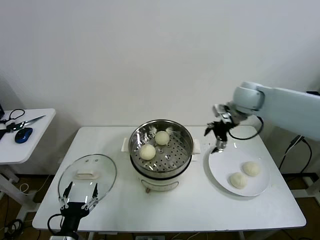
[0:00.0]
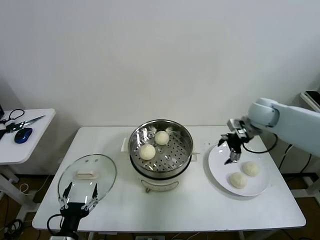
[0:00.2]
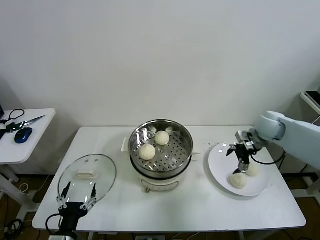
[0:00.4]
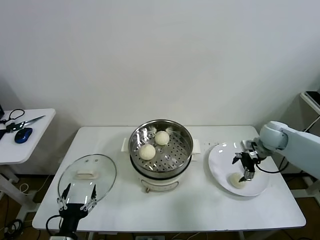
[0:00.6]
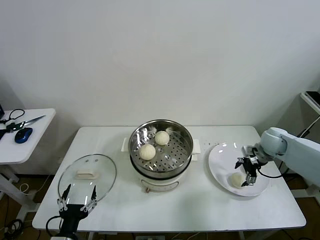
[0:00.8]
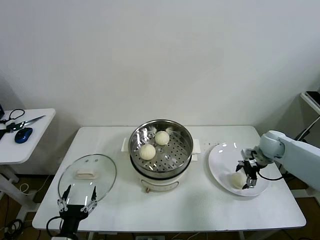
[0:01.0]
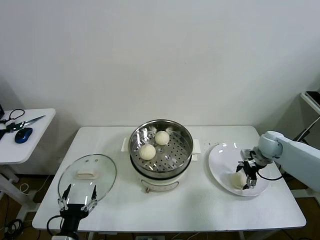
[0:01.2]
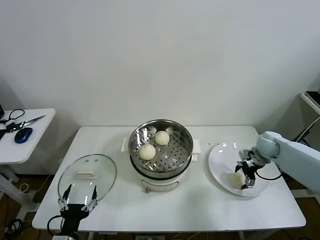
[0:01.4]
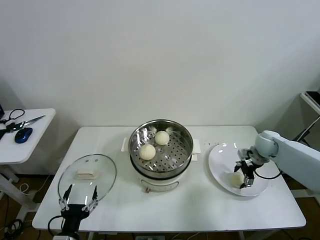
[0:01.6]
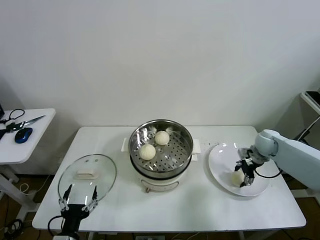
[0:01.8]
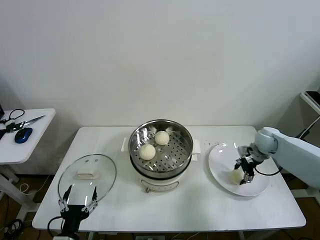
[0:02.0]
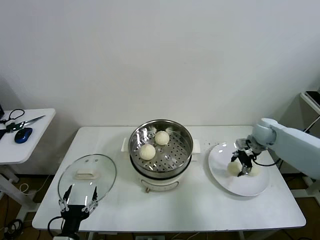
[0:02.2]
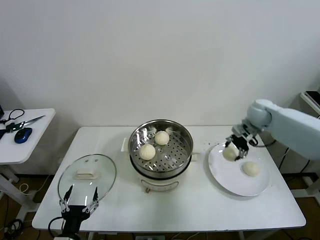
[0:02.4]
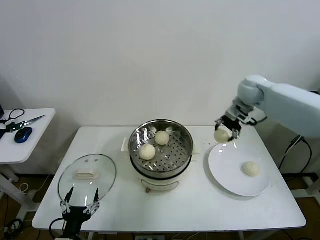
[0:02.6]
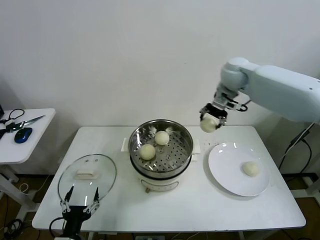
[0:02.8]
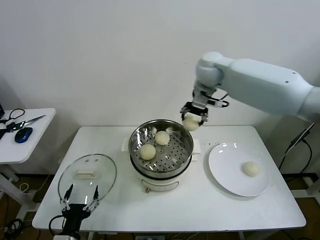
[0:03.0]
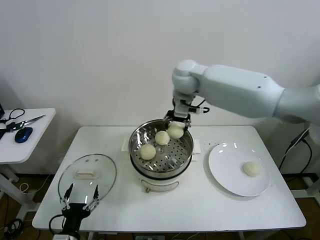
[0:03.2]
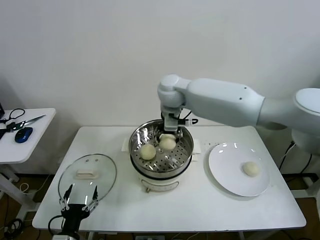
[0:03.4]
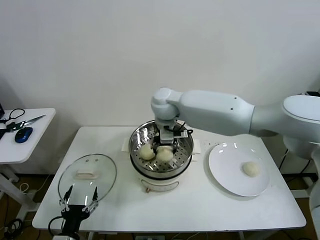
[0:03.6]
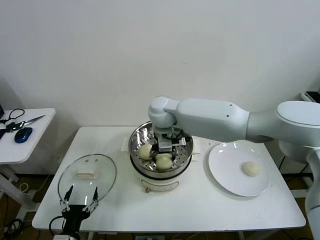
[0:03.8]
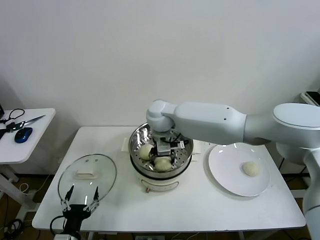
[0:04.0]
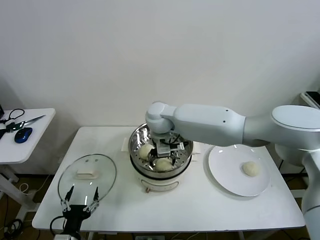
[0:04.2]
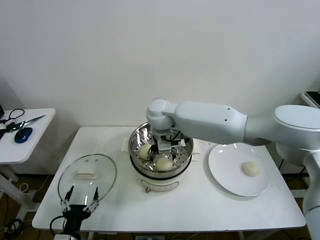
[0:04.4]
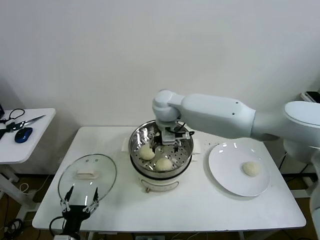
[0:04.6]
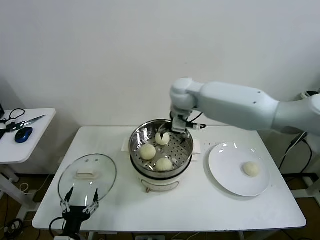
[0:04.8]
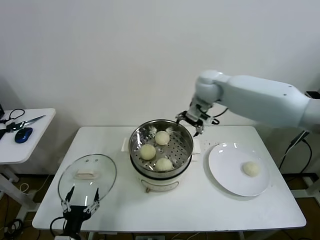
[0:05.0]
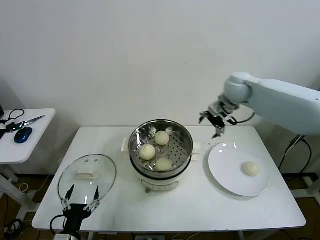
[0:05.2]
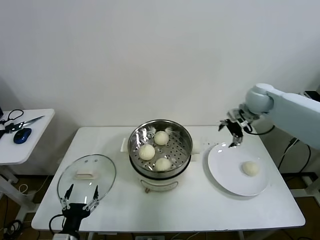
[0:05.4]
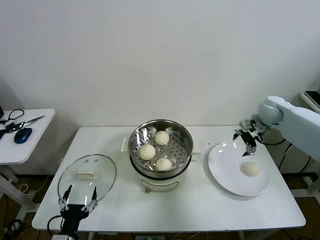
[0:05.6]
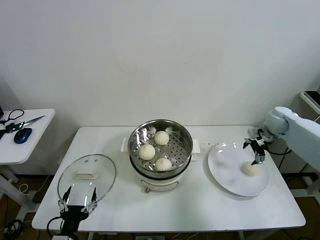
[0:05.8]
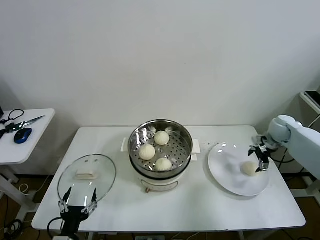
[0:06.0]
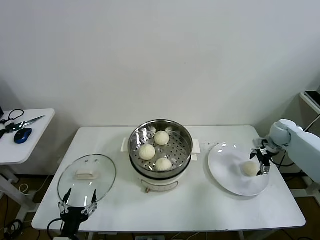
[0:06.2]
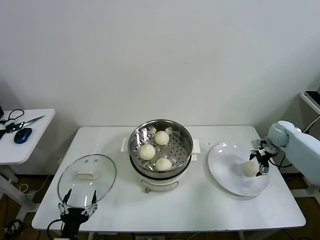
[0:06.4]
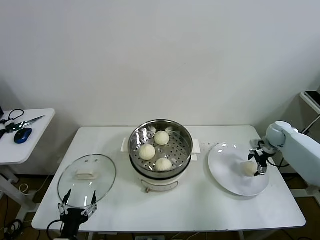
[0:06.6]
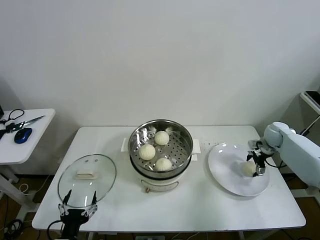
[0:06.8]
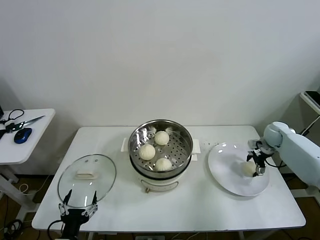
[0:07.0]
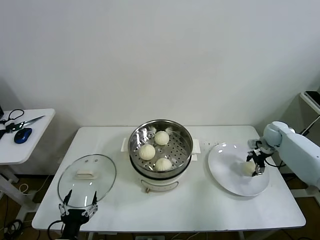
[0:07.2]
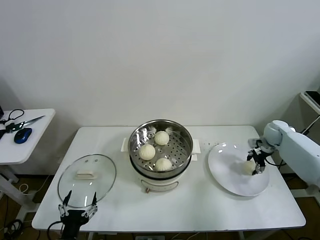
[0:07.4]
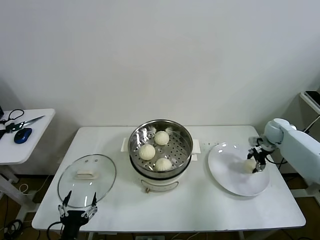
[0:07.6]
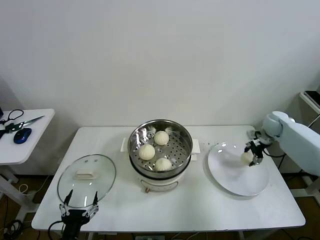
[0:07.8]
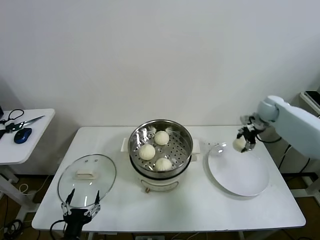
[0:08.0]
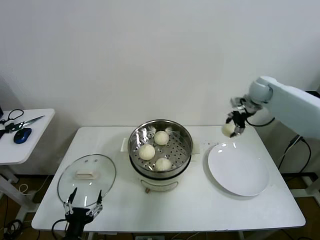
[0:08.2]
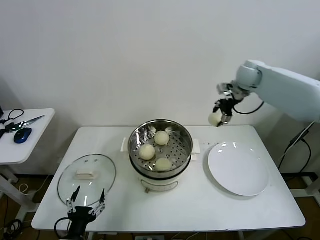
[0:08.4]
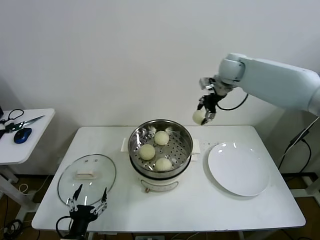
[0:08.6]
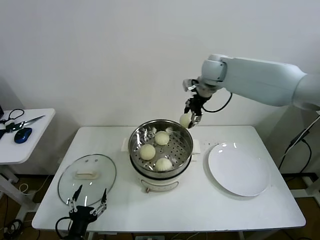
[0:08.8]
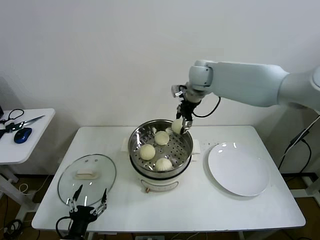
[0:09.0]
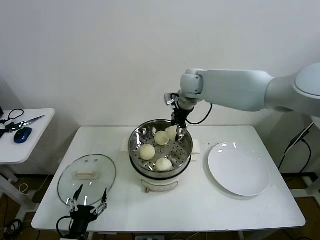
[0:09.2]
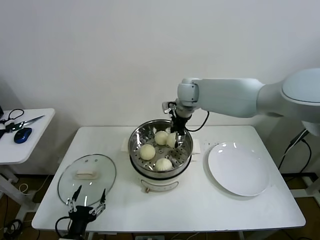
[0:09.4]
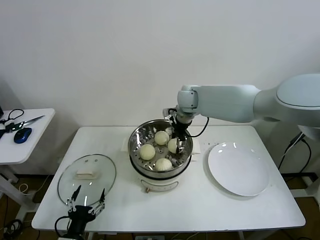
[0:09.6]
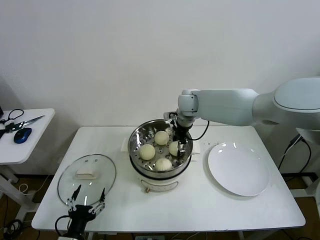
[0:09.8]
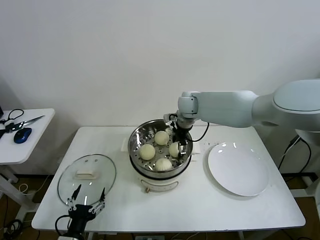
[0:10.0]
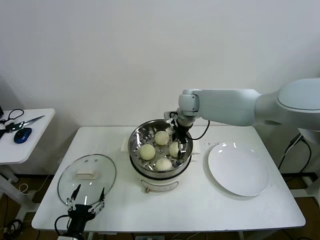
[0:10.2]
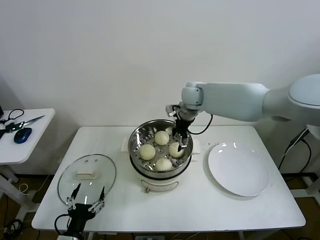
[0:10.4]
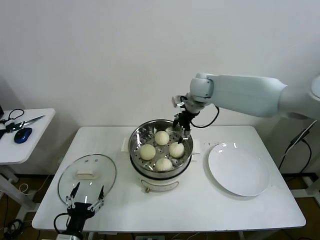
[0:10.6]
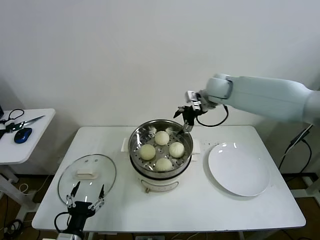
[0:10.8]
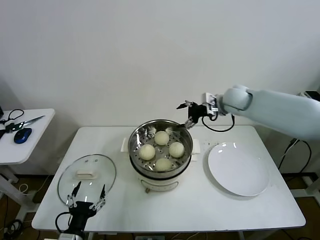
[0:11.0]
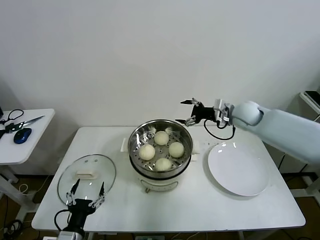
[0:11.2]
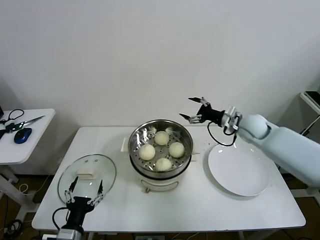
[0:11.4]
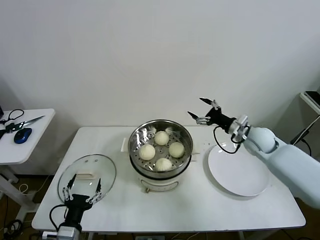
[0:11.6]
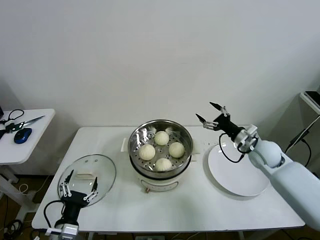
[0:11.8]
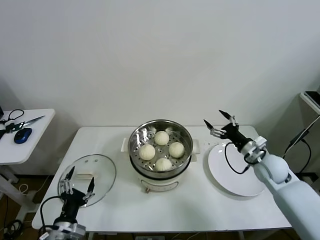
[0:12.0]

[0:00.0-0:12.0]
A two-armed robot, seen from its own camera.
Task of the whole recording: take steamed baozi put them in steamer then cover it.
Step, 0:00.0 to 0:02.0: Grasp the baozi in the plate with right gripper.
Step, 0:02.2 to 0:04.4: Place the baozi on the steamer with right gripper.
Step, 0:04.6 to 0:07.2: Grasp the baozi in the plate with right gripper.
Step, 0:07.4 to 0:10.2: Place the baozi on the steamer with right gripper.
0:00.0 to 0:01.6: The right gripper travels downward and to the right by some 20 cm.
0:01.6 to 0:03.0: The right gripper travels upward and to the left by roughly 40 cm, and closes its fingers.
0:03.0 to 0:04.4: The right gripper heads to the left, downward and backward, covering some 20 cm, and opens up.
0:04.4 to 0:06.0: The right gripper goes roughly 50 cm to the right.
0:06.0 to 0:07.6: The right gripper closes.
0:07.6 to 0:09.0: The right gripper shifts about 40 cm to the left and upward.
0:09.0 to 0:10.4: The right gripper heads downward, covering about 5 cm, and opens.
0:10.4 to 0:12.0: The right gripper goes some 35 cm to the right, backward and downward.

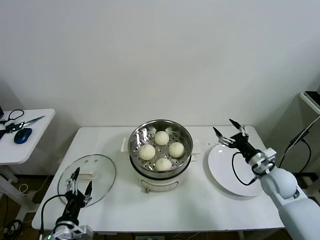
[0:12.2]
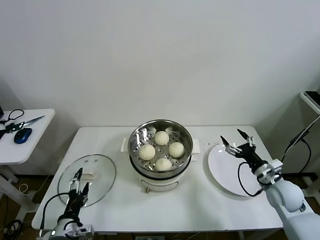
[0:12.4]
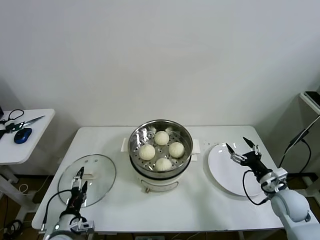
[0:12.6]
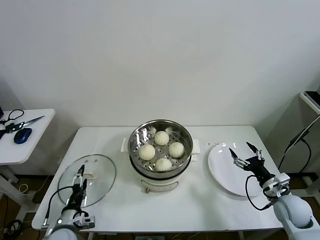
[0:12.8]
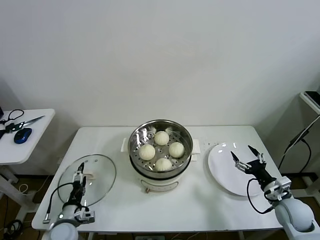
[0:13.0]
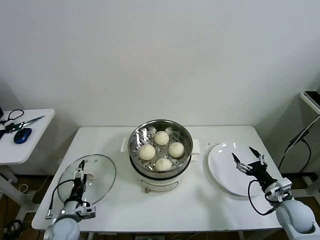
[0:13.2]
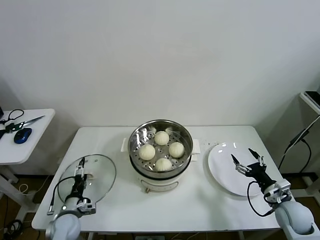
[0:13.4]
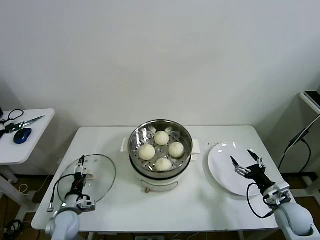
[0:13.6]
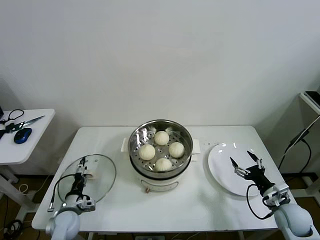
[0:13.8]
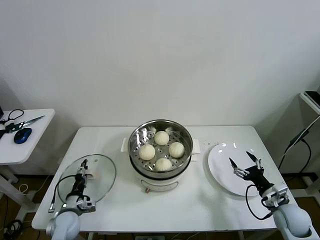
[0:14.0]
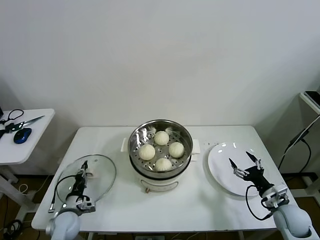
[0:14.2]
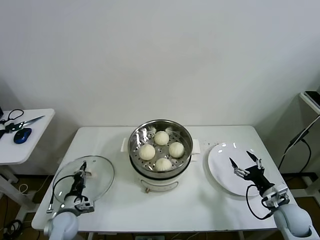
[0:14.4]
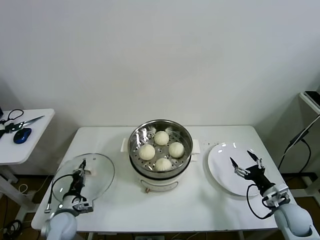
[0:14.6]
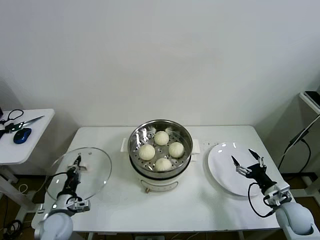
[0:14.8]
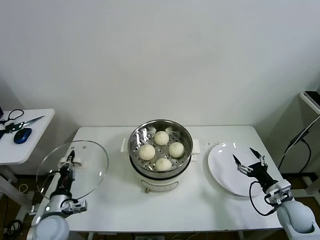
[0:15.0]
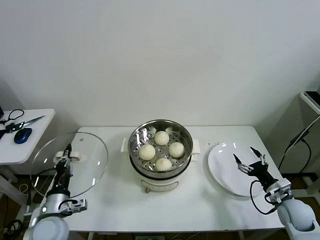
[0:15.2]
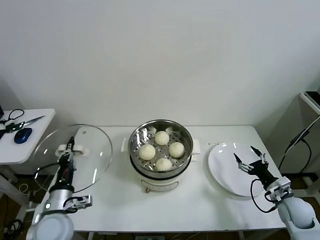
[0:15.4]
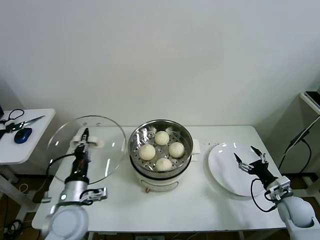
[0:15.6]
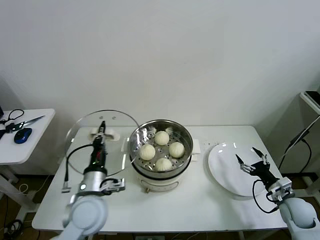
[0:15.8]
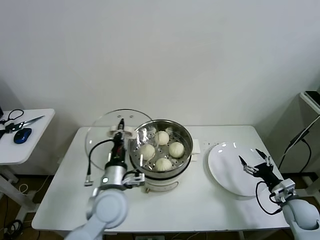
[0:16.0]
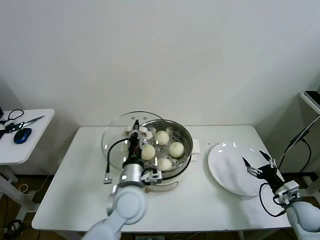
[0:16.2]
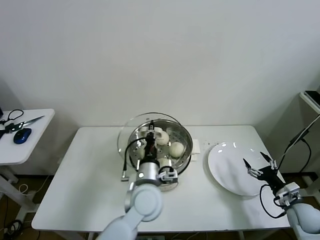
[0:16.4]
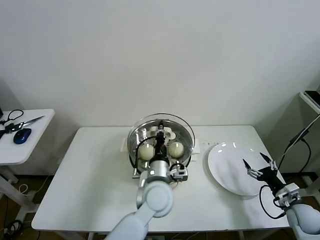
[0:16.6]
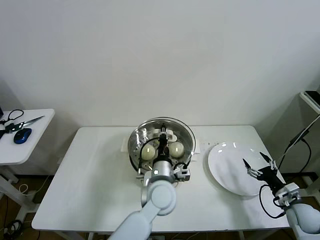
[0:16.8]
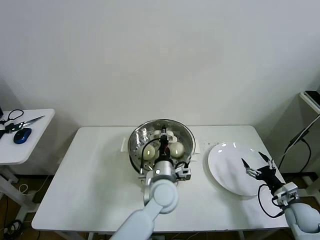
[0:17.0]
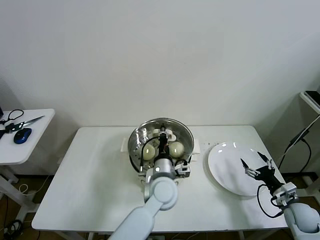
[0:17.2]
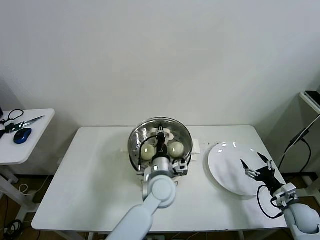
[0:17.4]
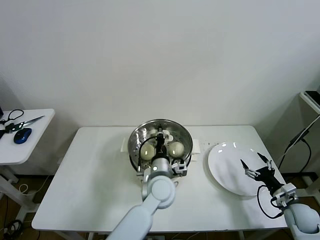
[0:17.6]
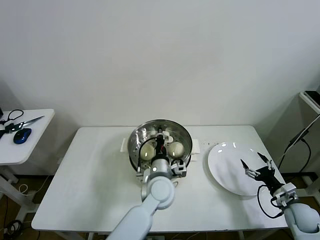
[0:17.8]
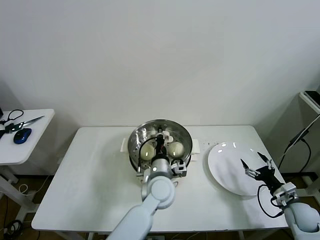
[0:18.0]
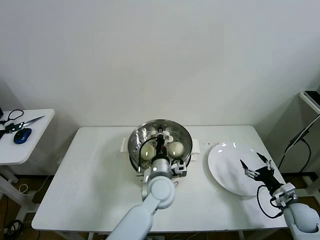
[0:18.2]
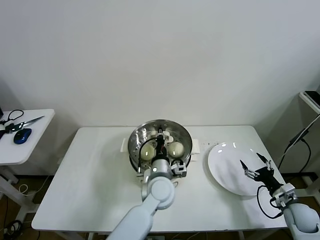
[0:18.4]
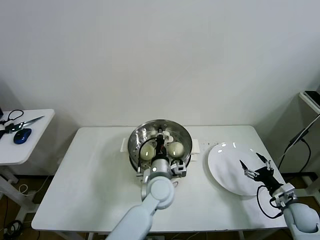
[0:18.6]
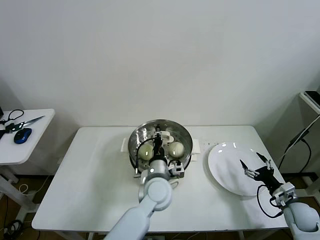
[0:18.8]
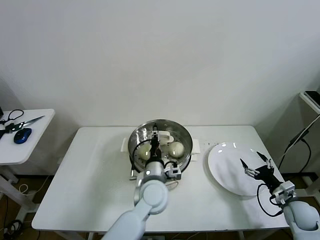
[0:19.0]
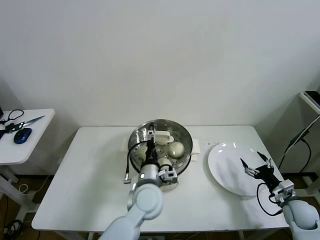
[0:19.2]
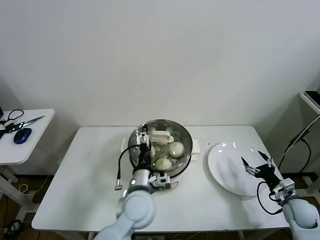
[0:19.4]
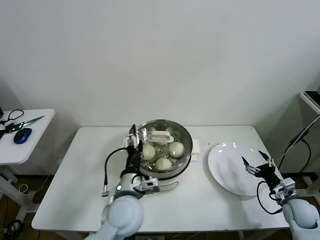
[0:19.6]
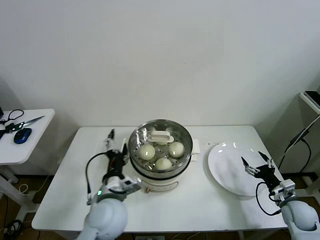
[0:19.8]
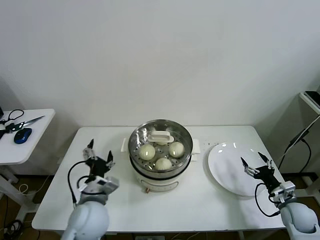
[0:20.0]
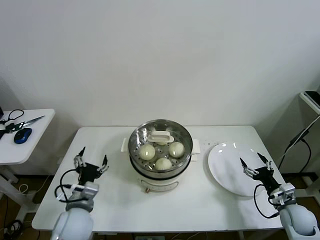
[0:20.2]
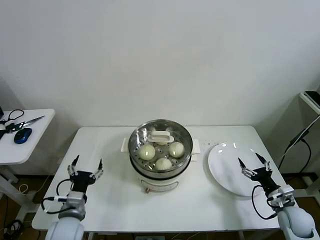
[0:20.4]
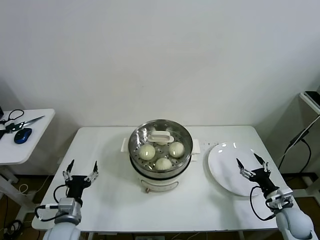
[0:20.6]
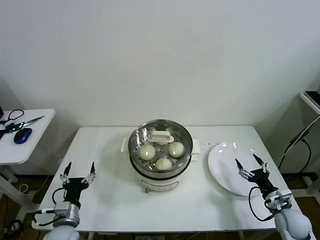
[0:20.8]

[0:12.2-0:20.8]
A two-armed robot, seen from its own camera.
Task of the whole recording: take steamed baozi put them in steamer then cover it.
Step, 0:12.2 to 0:14.4: Grasp the pot lid with left gripper.
Step, 0:14.6 to 0:19.0: Place the pot lid on the steamer with left gripper.
0:12.2 to 0:13.6: The right gripper heads backward and downward, covering about 10 cm; the left gripper heads forward and downward, covering about 15 cm.
0:13.6 to 0:15.0: The left gripper is displaced upward by about 10 cm, and closes.
0:15.0 to 0:16.6: The left gripper heads to the right, covering about 30 cm. The right gripper ends up some 5 cm from where it was.
0:16.6 to 0:18.0: The left gripper changes place by some 5 cm.
0:18.0 to 0:19.4: The left gripper moves some 5 cm, and opens up.
0:19.4 to 0:20.8: The left gripper heads to the left and downward, covering roughly 25 cm.

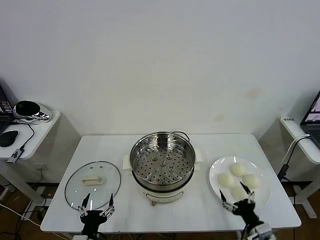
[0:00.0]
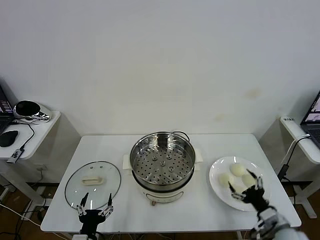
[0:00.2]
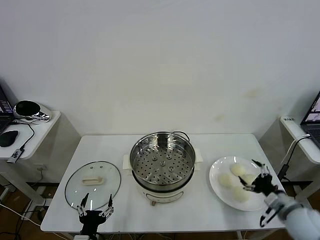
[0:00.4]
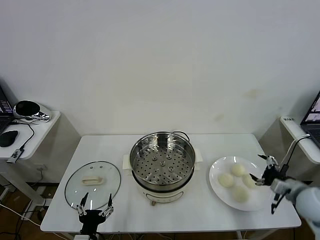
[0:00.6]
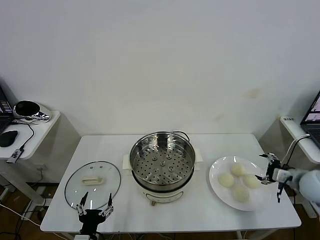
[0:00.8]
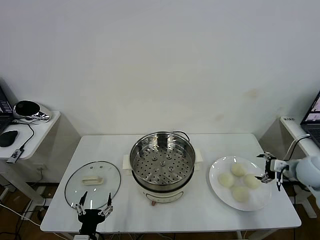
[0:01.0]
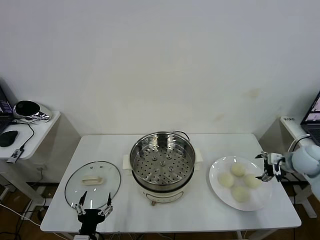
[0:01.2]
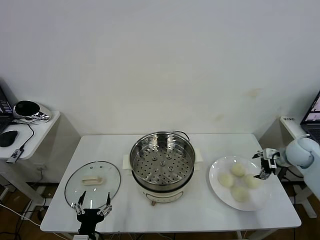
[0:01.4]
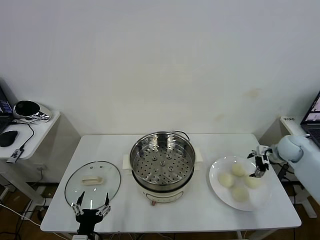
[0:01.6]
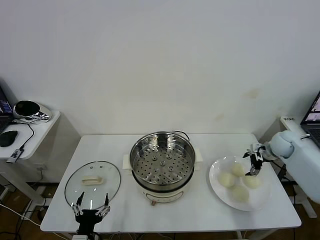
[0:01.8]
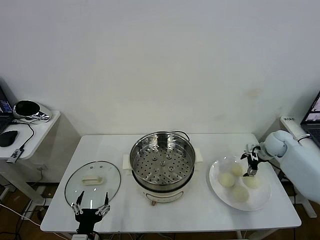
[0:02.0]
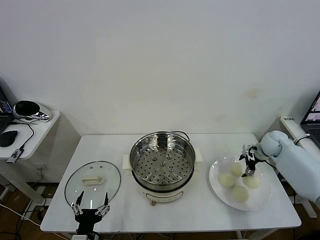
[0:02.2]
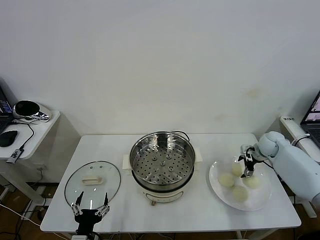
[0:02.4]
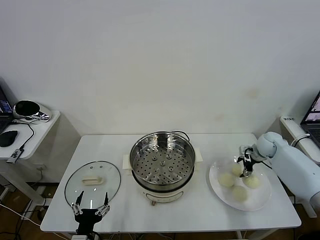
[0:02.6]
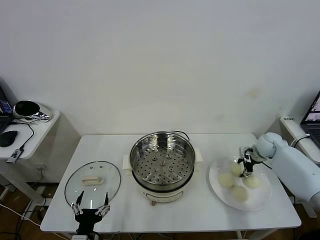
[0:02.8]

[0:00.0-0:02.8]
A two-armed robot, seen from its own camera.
Task of the whole recording: take steamed baozi put them in steamer then cover it.
0:01.4 to 0:02.8: The right gripper is displaced forward by about 5 cm, and closes.
